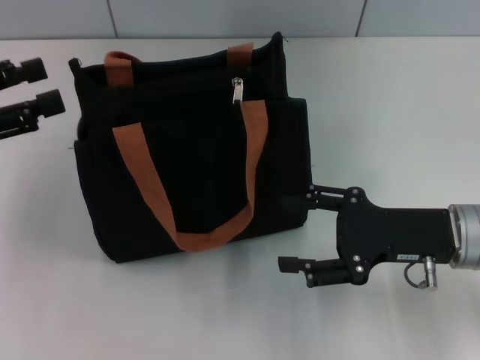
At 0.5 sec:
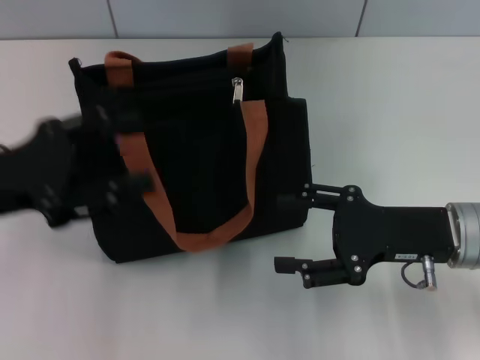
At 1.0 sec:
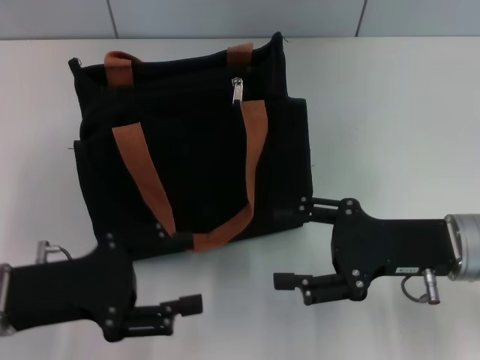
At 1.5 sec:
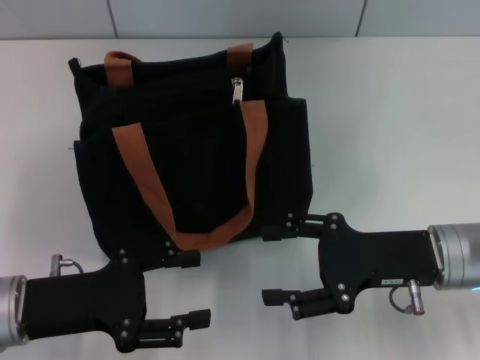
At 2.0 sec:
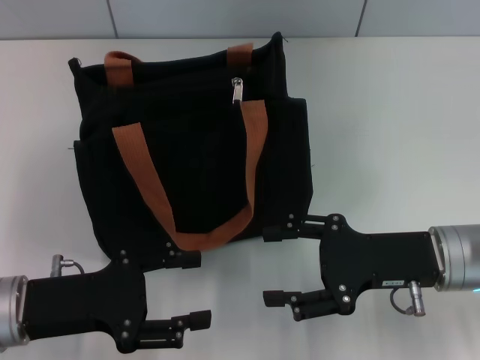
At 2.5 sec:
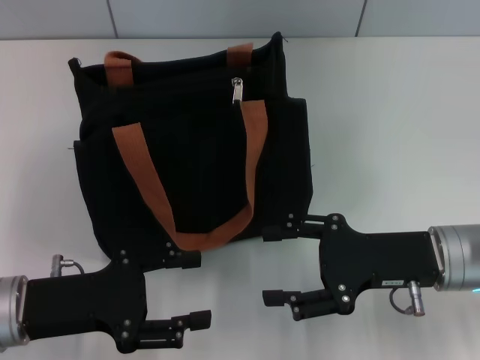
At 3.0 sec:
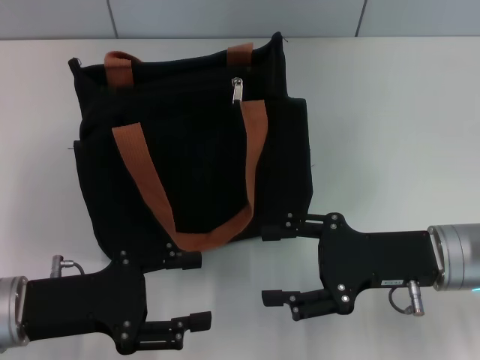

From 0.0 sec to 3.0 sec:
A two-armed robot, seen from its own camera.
From 0.0 sec to 1.5 sec: The left gripper heads downward, to the right and backward, covering roughly 15 cm.
From 1.5 sec to 3.0 sec: The two grippers keep their place.

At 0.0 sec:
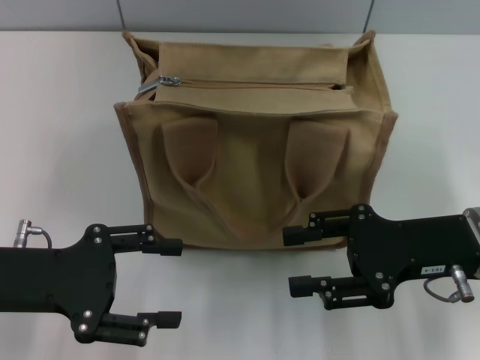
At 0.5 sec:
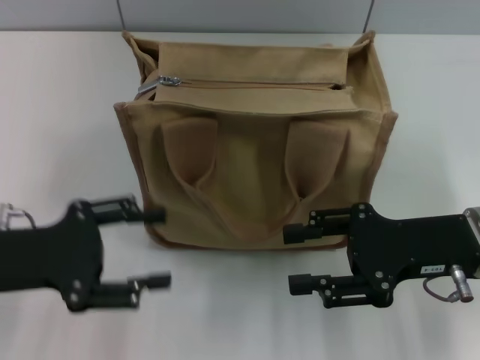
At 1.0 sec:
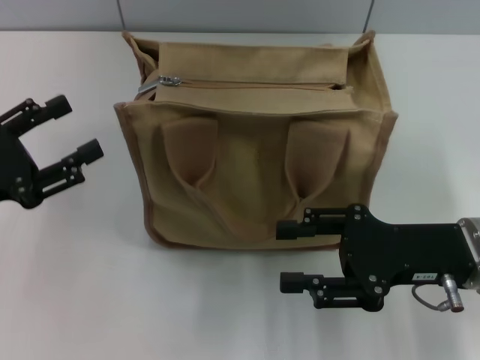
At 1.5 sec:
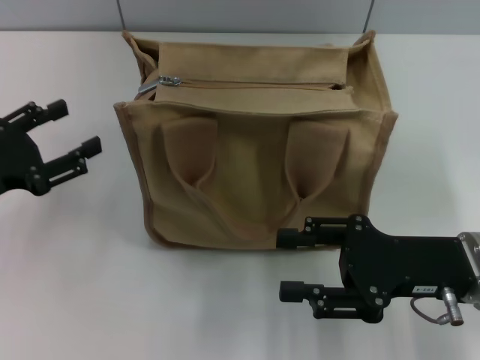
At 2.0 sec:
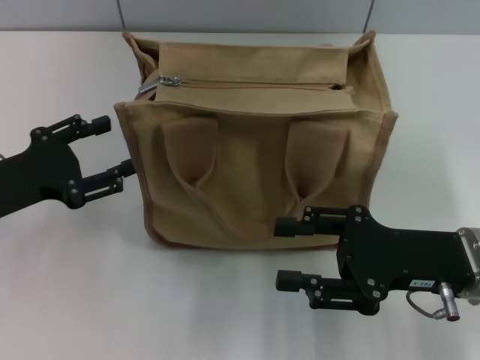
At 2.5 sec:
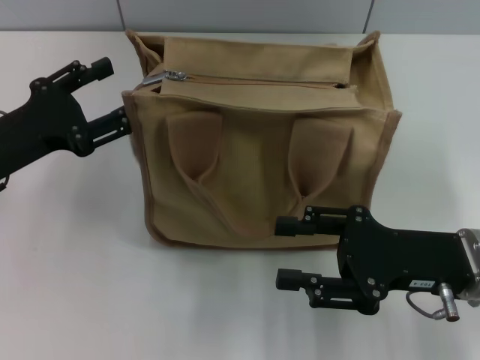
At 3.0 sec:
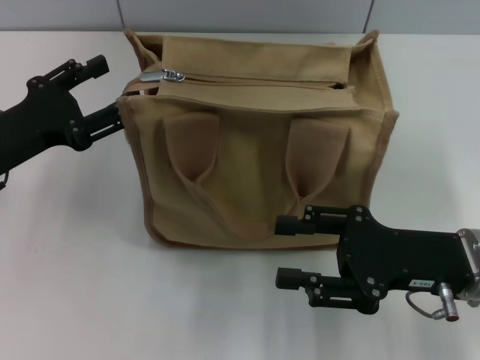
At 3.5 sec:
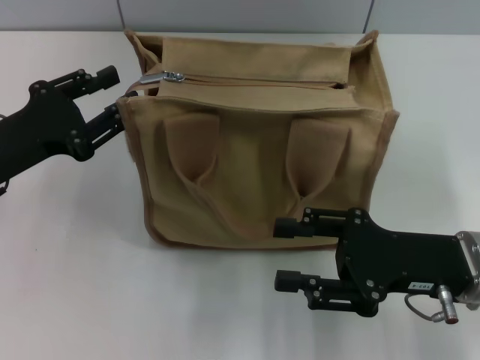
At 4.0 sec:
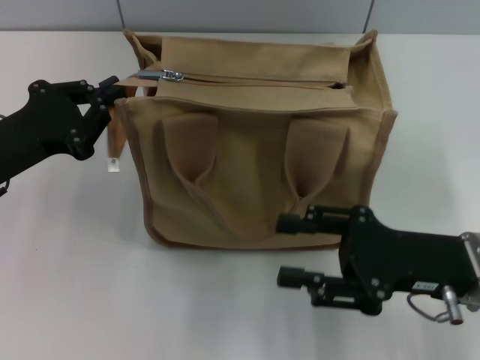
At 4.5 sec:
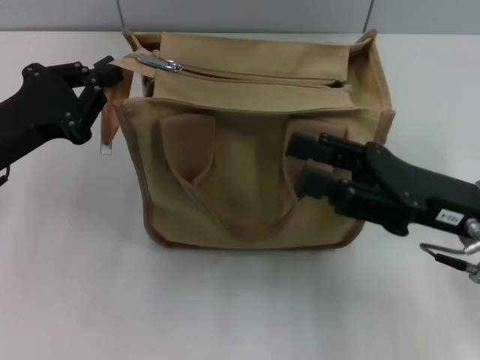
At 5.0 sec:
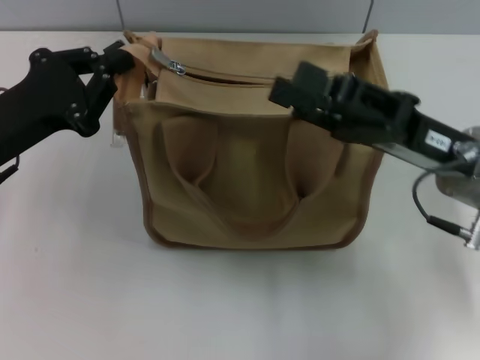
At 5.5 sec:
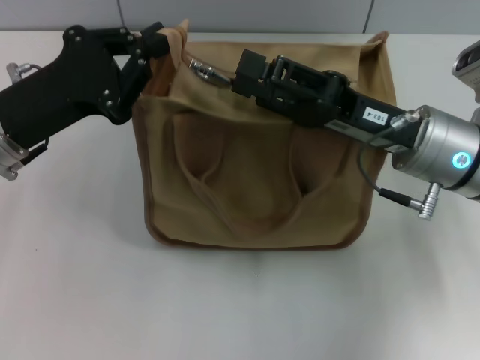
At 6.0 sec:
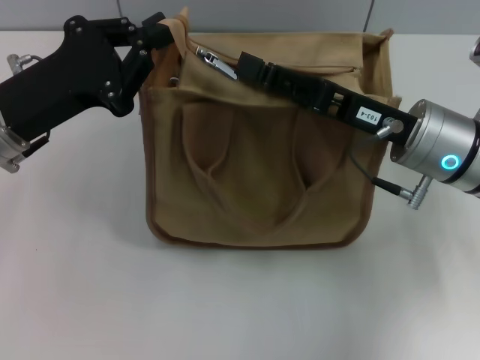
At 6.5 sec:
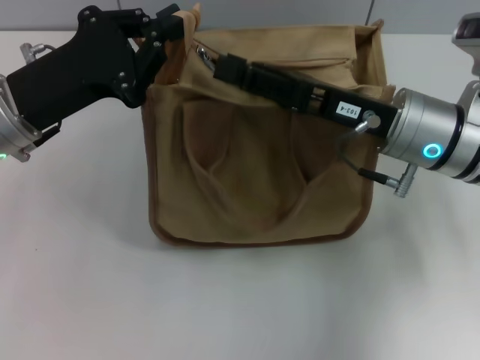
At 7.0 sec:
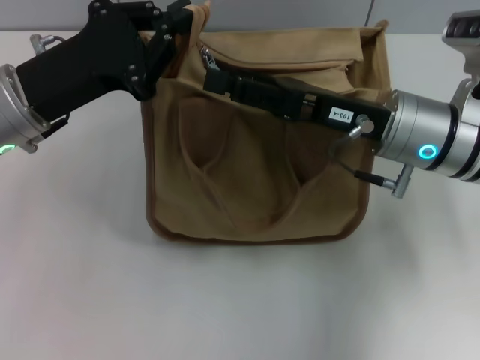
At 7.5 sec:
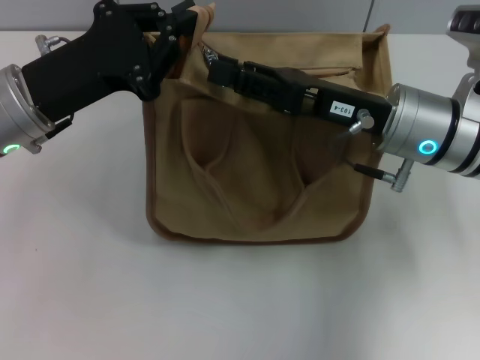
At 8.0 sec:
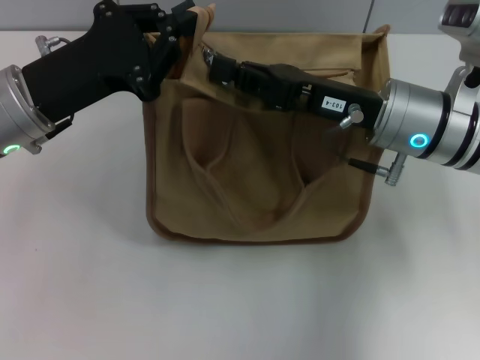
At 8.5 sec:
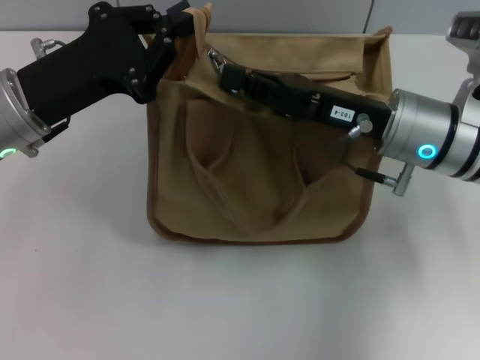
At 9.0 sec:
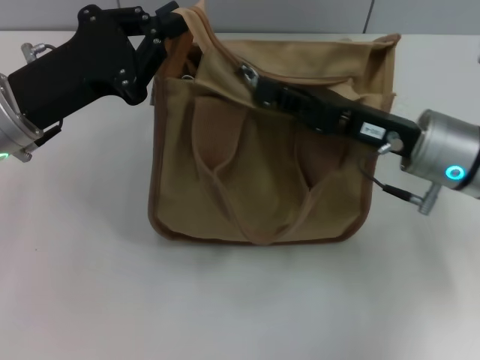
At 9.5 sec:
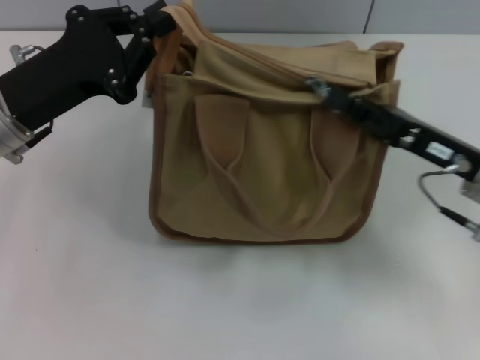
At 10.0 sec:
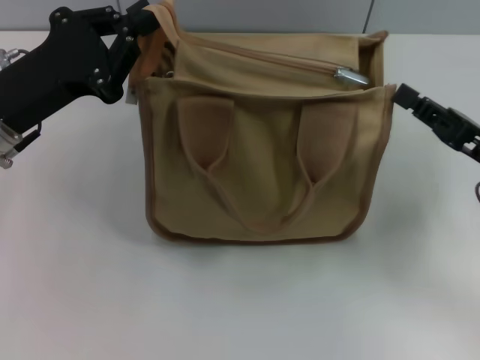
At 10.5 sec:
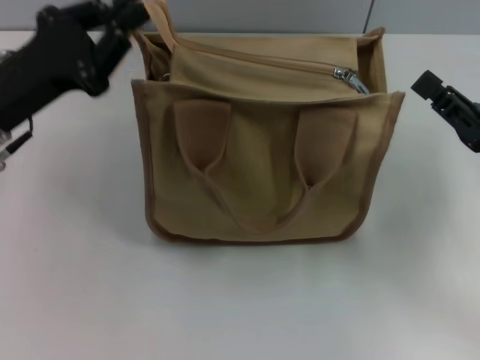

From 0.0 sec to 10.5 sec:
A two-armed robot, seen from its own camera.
Step, from 0.0 sec to 10.0 sec: Pull up the zipper with your right hand.
From 0.0 sec to 2.0 sec: The left gripper changes place by approximately 5 cm.
From 2.0 sec to 4.0 sec: The left gripper closes.
From 4.0 sec to 6.5 sec: The right gripper shifts roughly 10 cm forward and to the left. The left gripper shifts by approximately 5 cm.
From 6.5 sec to 8.5 sec: The right gripper closes.
From 8.5 sec to 10.5 sec: The right gripper travels to the right and backward by approximately 15 cm.

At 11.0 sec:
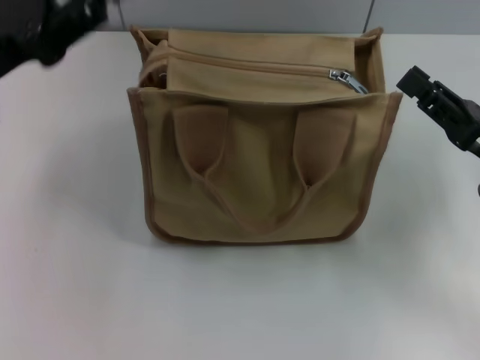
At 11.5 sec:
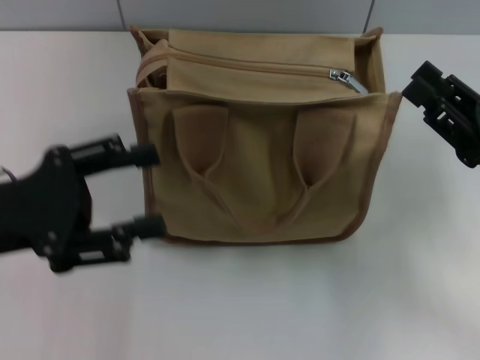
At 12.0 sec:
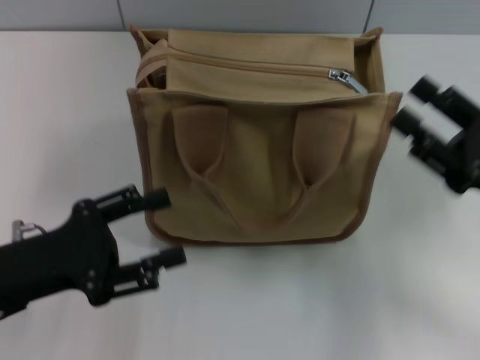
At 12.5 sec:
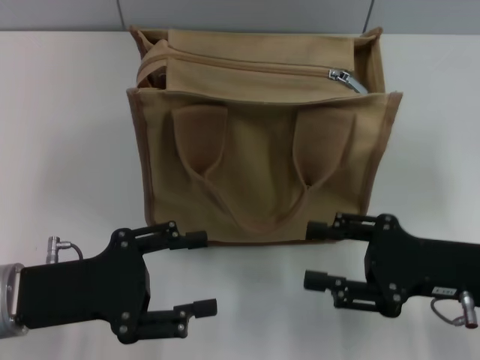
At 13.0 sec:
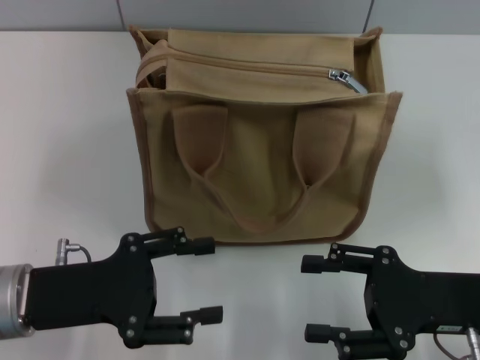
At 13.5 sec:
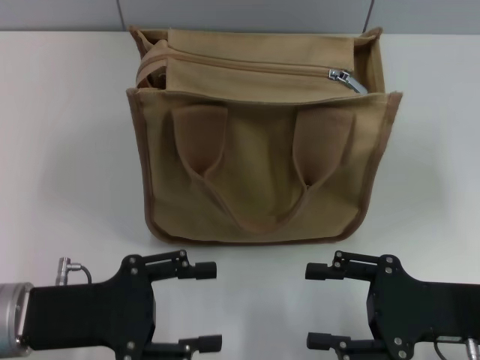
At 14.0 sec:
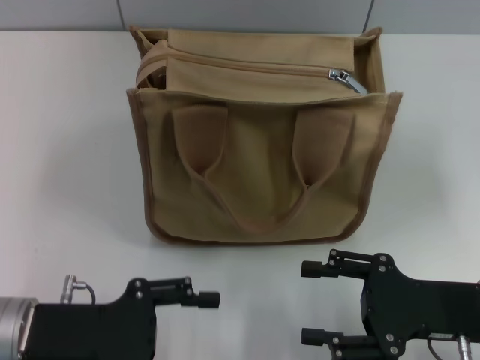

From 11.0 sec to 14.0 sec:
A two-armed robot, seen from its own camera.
From 11.0 sec to 12.5 sec: The right gripper opens up. The left gripper travels downward and backward by roughly 15 cm, and opens.
